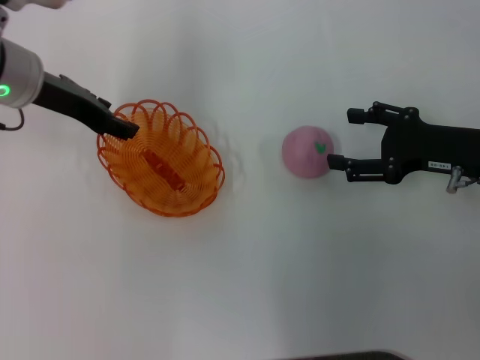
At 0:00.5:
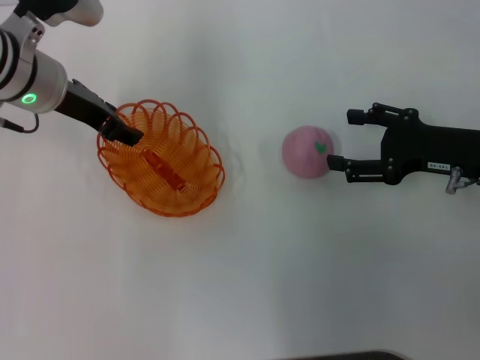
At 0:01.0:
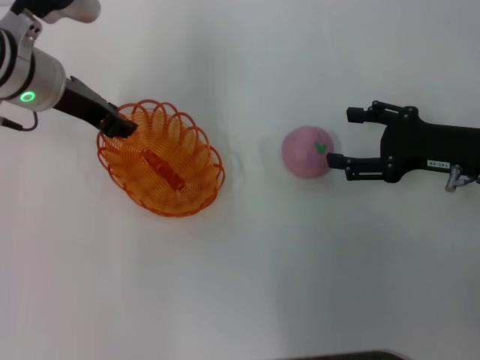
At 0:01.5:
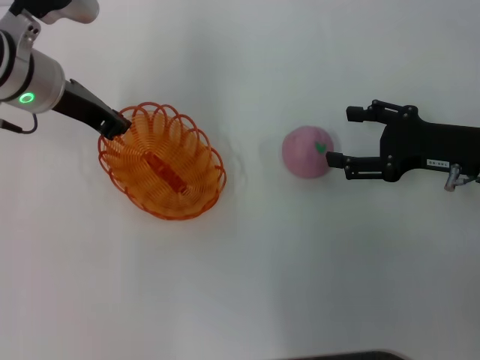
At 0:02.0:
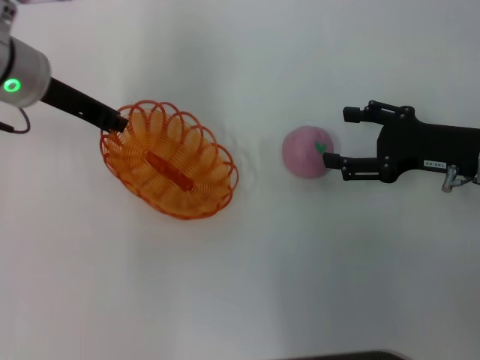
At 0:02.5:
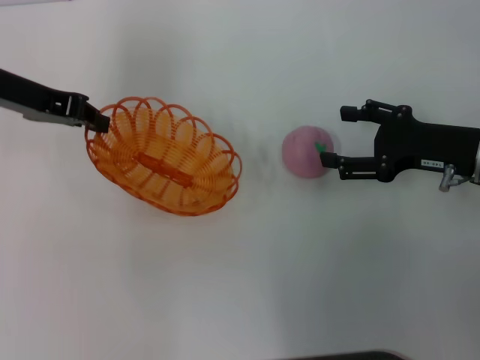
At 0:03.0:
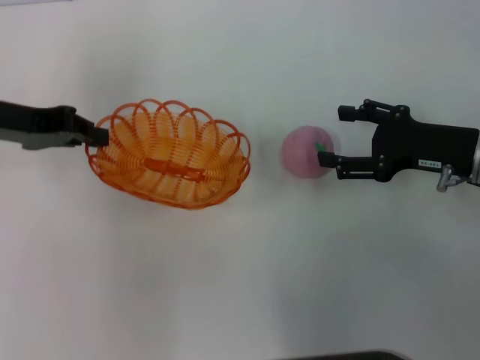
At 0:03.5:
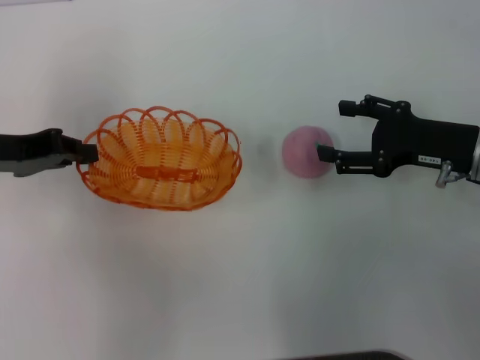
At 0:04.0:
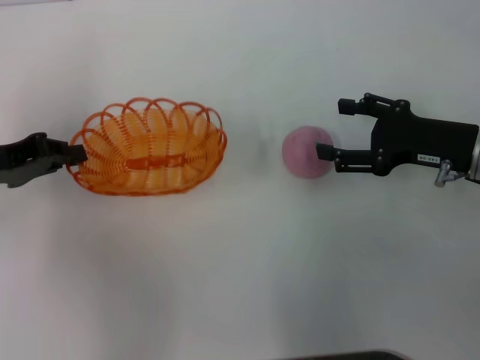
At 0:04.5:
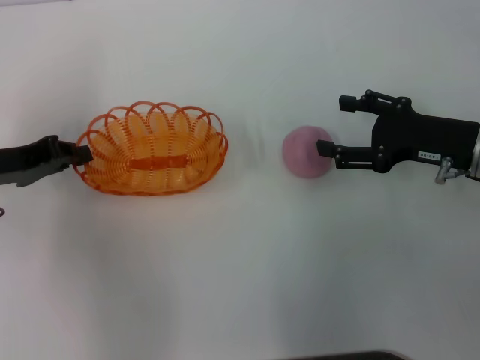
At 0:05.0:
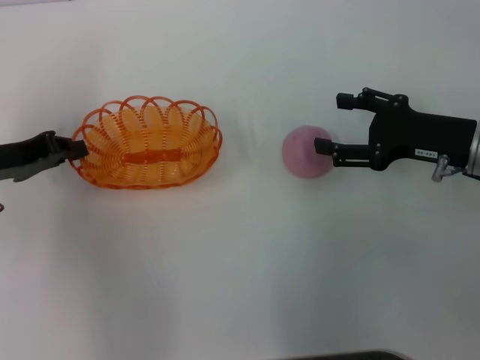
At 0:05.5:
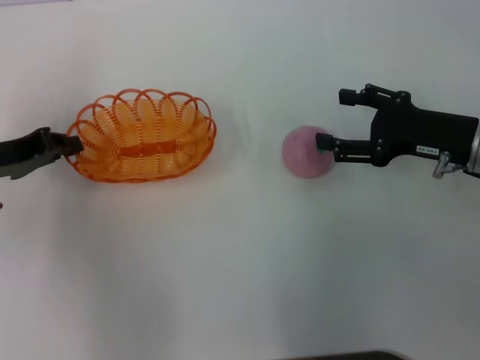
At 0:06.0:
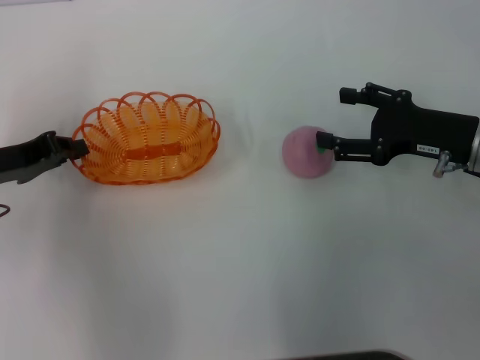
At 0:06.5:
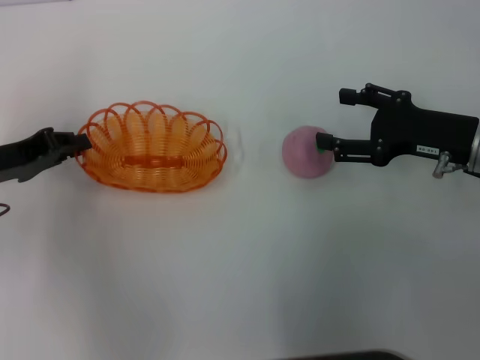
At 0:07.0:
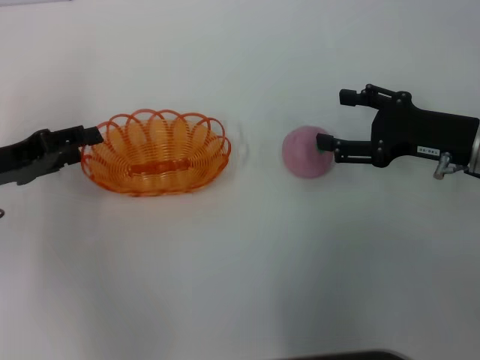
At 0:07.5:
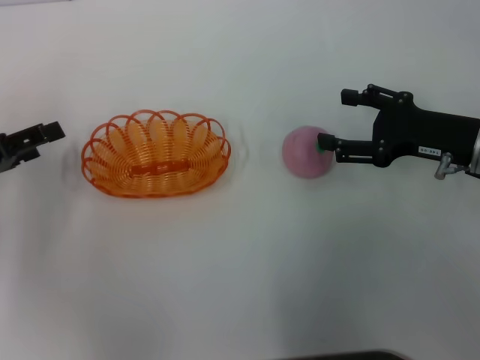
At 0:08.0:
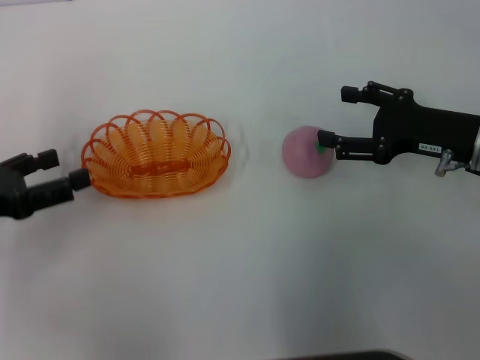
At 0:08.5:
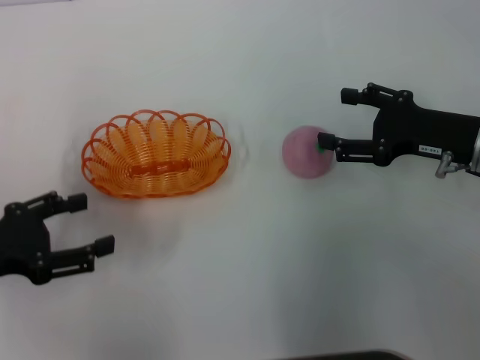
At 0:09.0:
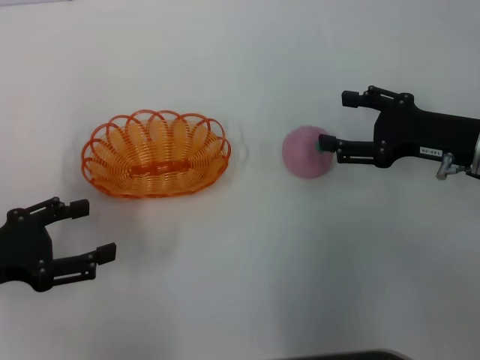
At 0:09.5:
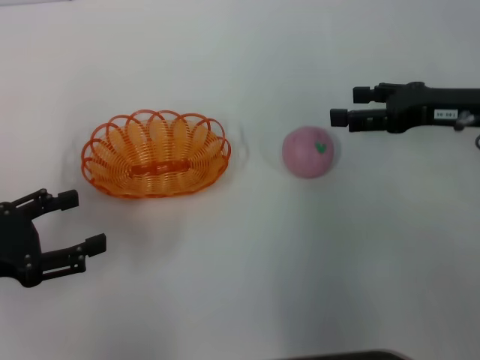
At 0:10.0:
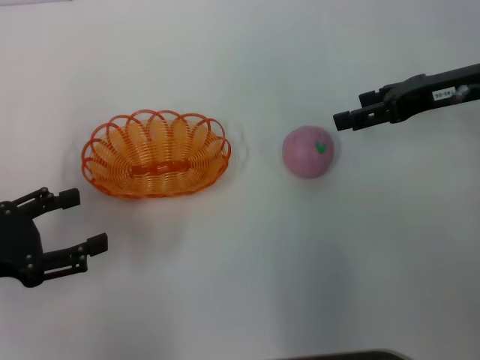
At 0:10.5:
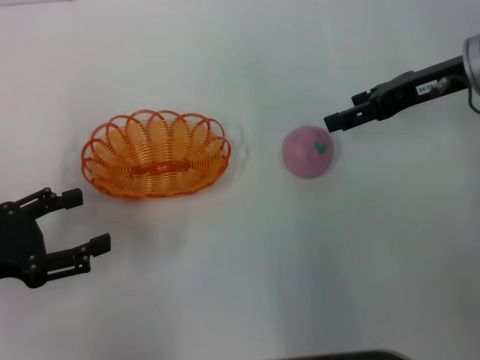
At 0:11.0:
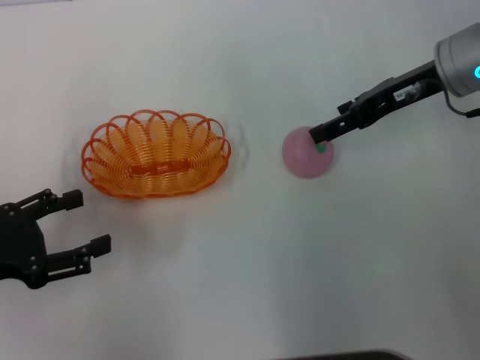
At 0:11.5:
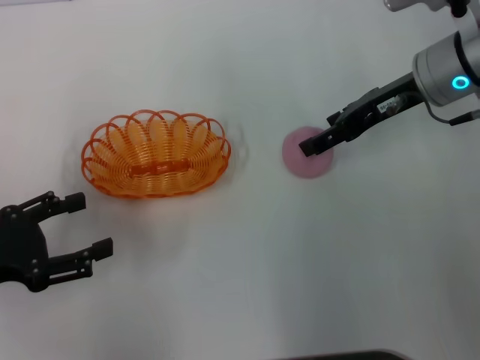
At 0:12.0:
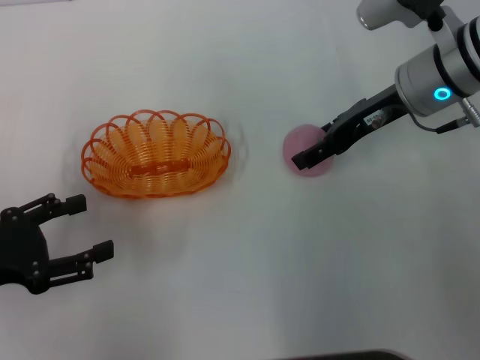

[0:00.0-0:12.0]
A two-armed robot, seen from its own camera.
Step, 0:00.0 to 0:02.5: Pick up the basket with the left gripper.
Step, 0:03.0 to 0:08.5: Place the basket in the center of view with the left gripper.
0:00.0 to 0:02.0: The left gripper closes its fingers.
0:02.0 to 0:04.0: The left gripper is displaced to the left and backward by approximately 15 cm.
0:04.0 to 0:06.0: The grippers make only small movements.
0:06.0 to 0:08.0: The left gripper shifts roughly 5 cm backward, and opens up.
0:08.0 to 0:10.0: The right gripper travels upward and forward by about 10 cm.
0:10.0 to 0:12.0: The right gripper is displaced to the left by about 10 cm.

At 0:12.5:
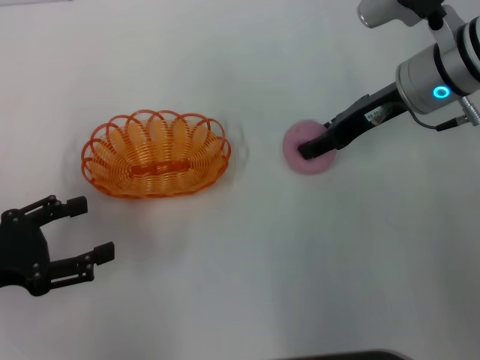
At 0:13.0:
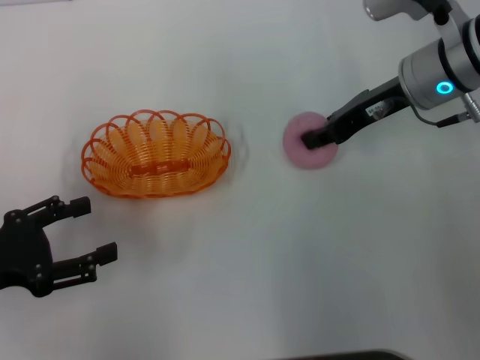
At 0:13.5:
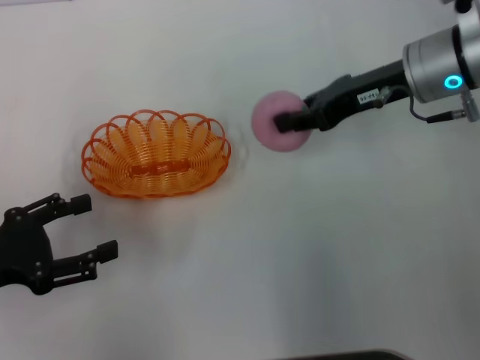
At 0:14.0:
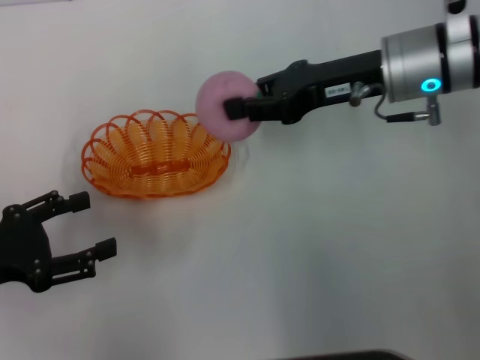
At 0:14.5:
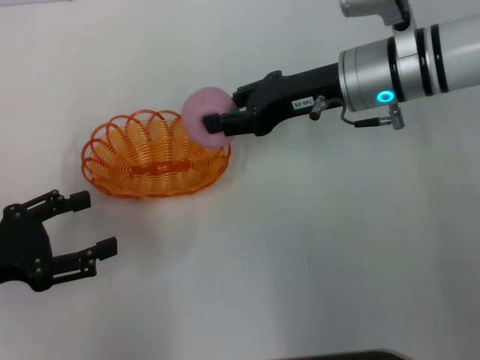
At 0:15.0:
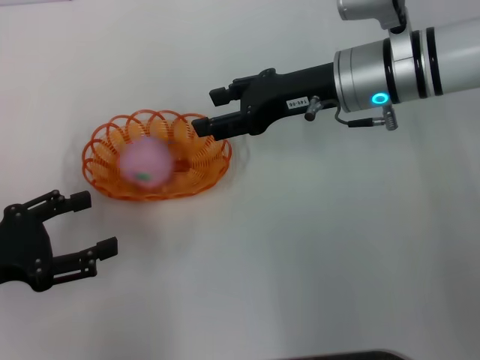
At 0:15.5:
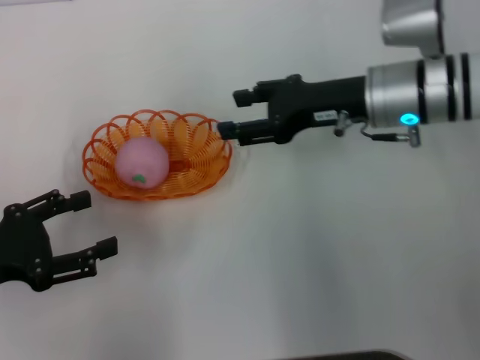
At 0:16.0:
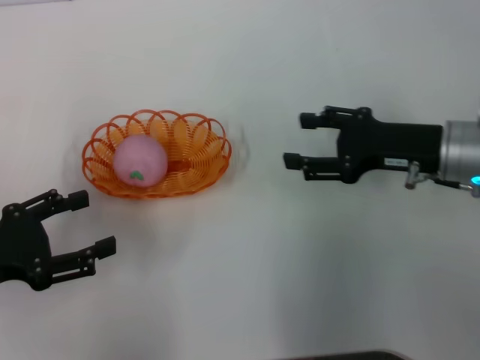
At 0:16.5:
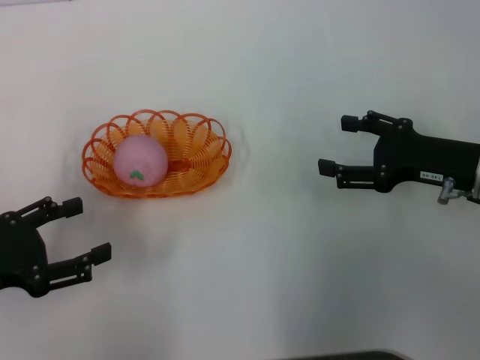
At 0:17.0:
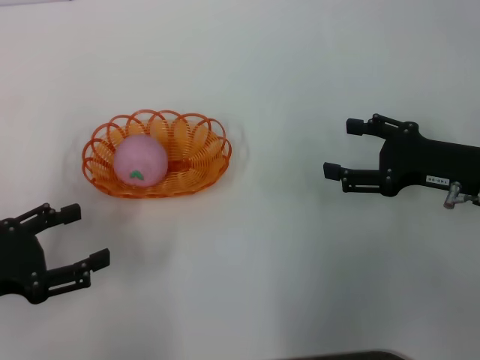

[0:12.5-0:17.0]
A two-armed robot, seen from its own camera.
Step, 0:13.5 to 0:15.5: Place the peach into the basket with the right gripper.
0:12.5 to 0:14.5: The right gripper shifts some 5 cm to the left, and closes its fingers.
0:14.5 to 0:17.0: The right gripper heads to the right, backward and downward, covering roughly 20 cm, and opens.
